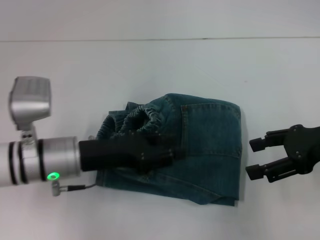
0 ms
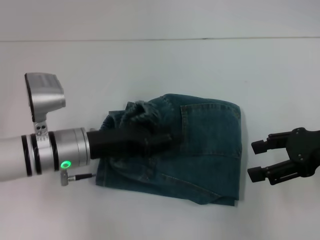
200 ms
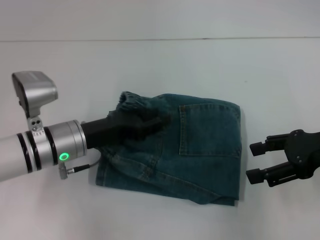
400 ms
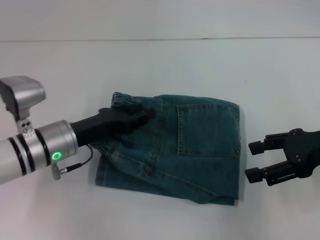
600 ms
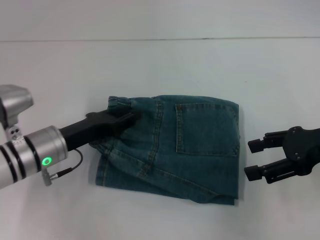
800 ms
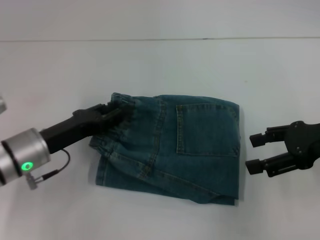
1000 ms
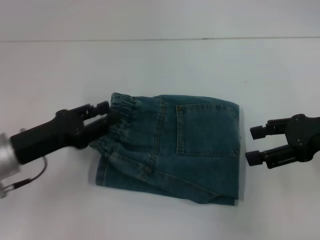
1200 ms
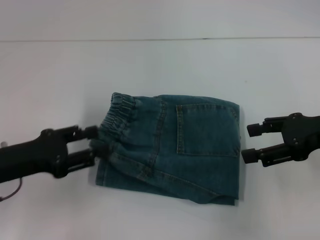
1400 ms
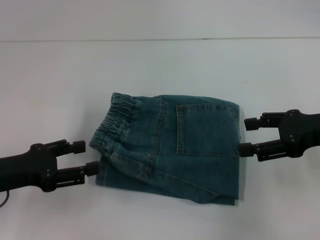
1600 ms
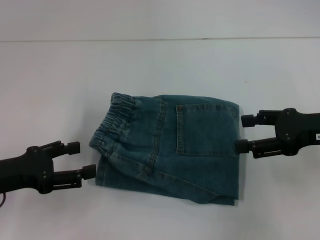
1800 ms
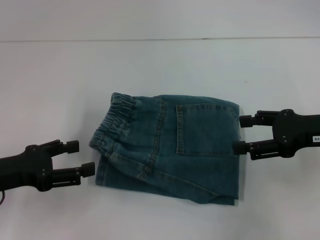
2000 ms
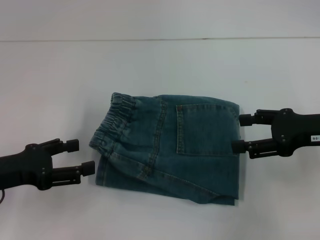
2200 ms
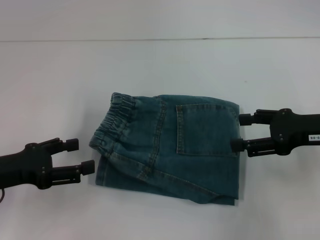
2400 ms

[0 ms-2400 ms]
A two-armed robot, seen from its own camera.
Step, 0 ms to 1400 ms: Adjust the pants with your left hand.
0 ms to 1200 ms: The left gripper moves to the left, some 10 cm.
1200 ms to 2400 ms: The left gripper changes place by some 5 cm, and opens up.

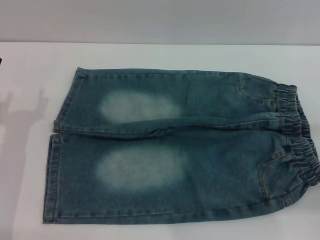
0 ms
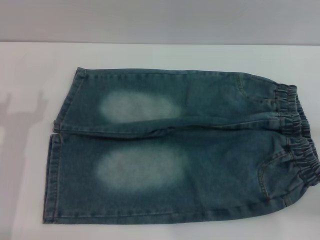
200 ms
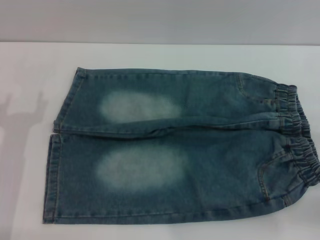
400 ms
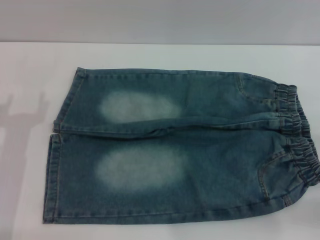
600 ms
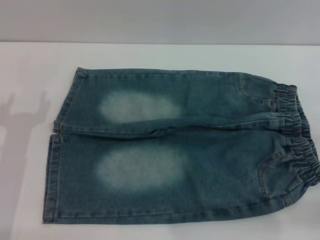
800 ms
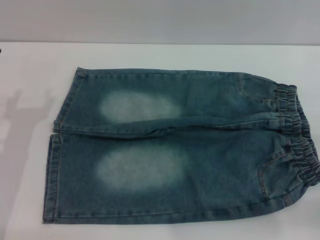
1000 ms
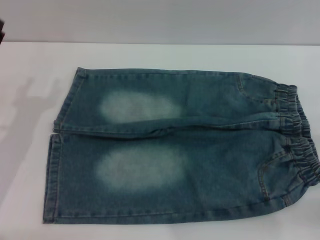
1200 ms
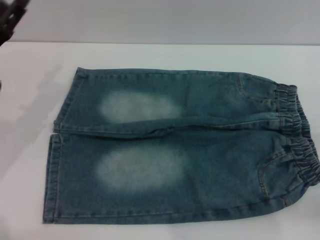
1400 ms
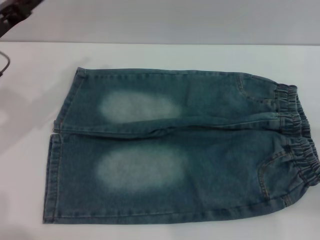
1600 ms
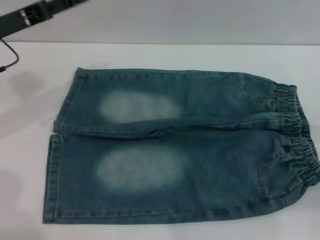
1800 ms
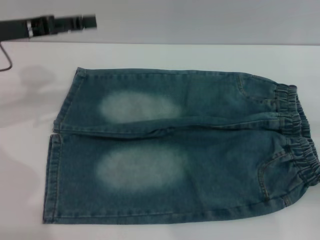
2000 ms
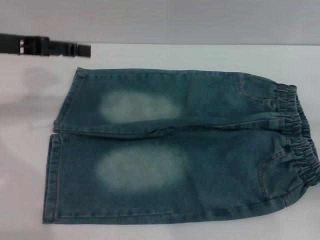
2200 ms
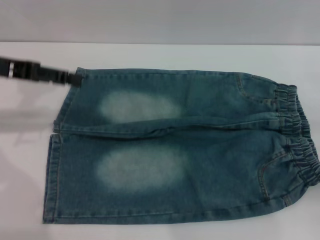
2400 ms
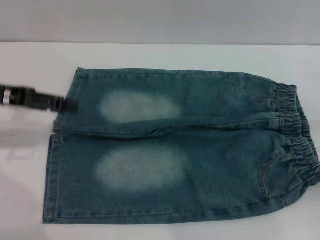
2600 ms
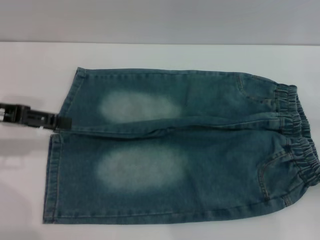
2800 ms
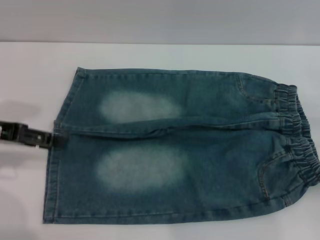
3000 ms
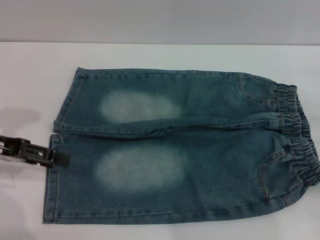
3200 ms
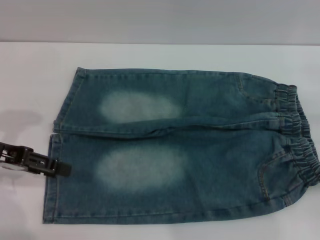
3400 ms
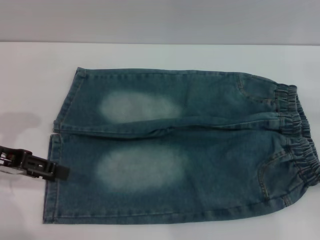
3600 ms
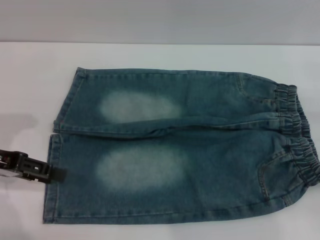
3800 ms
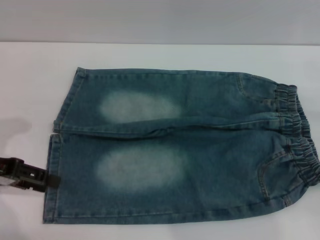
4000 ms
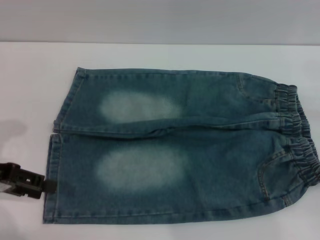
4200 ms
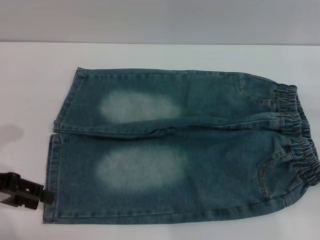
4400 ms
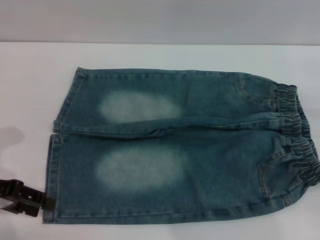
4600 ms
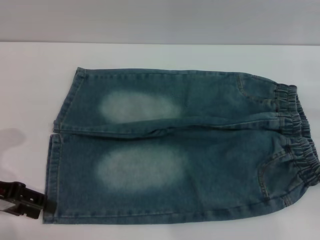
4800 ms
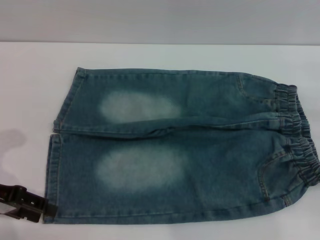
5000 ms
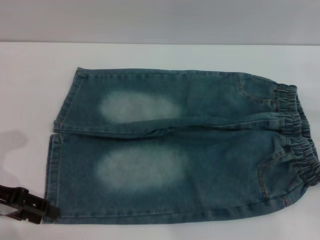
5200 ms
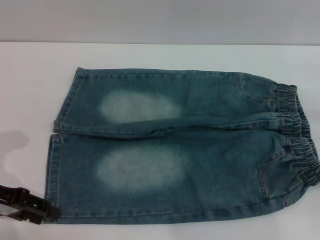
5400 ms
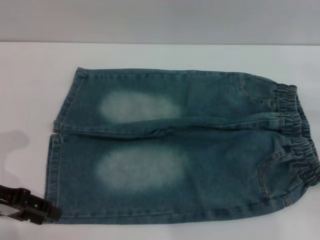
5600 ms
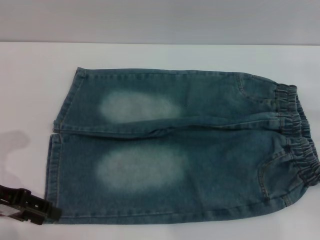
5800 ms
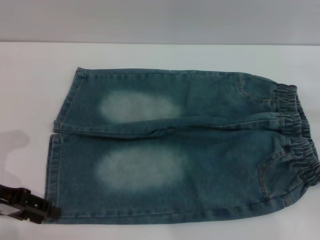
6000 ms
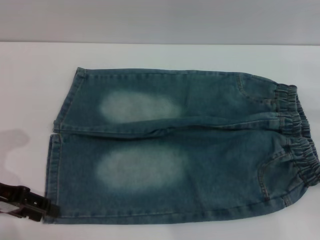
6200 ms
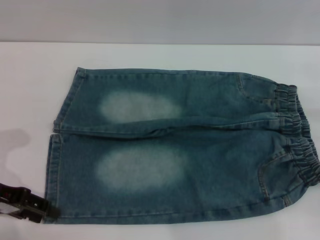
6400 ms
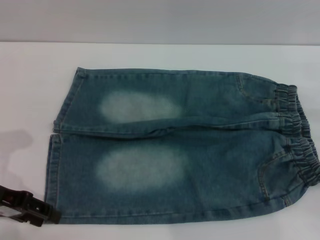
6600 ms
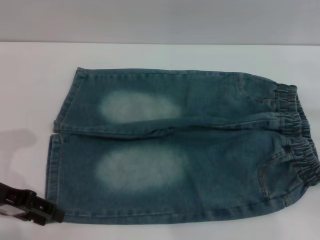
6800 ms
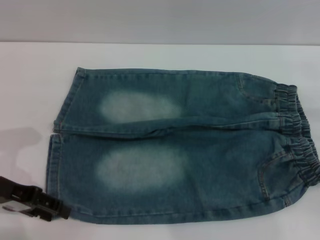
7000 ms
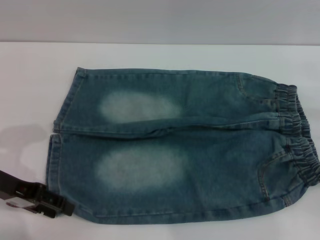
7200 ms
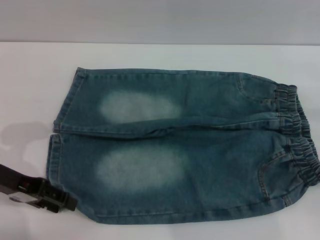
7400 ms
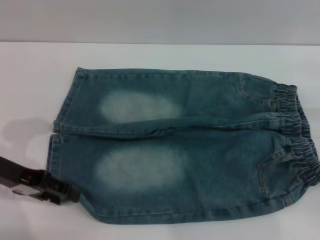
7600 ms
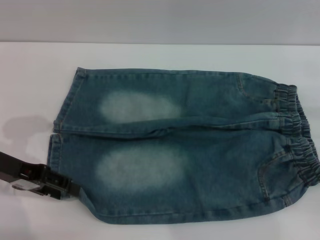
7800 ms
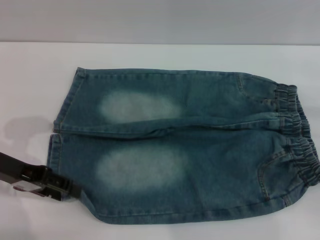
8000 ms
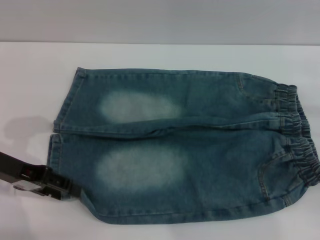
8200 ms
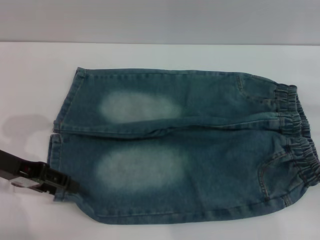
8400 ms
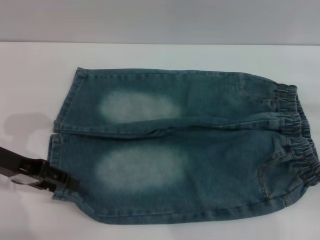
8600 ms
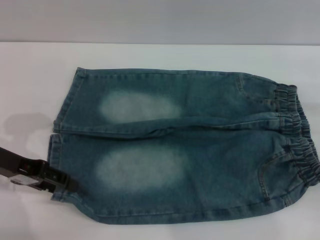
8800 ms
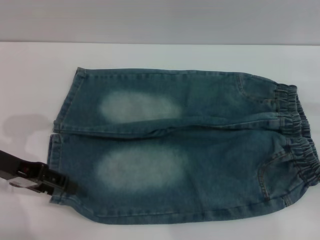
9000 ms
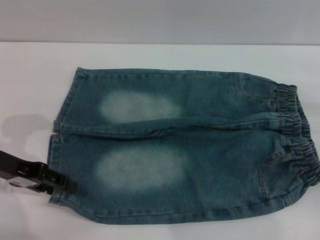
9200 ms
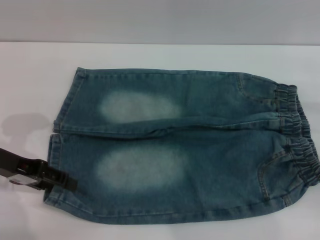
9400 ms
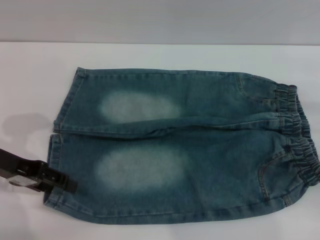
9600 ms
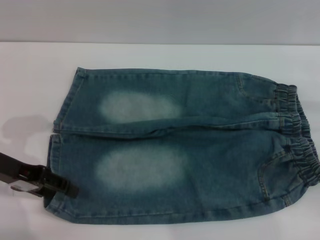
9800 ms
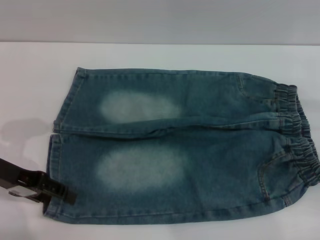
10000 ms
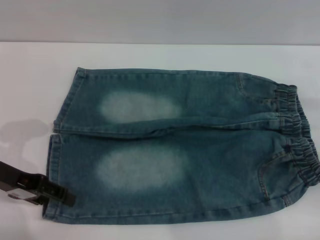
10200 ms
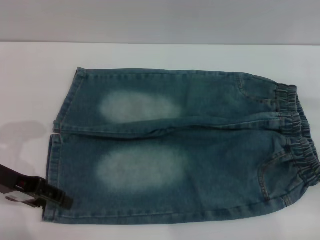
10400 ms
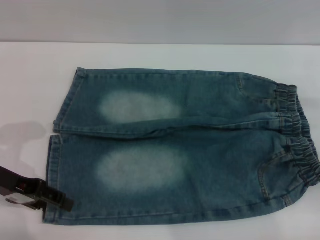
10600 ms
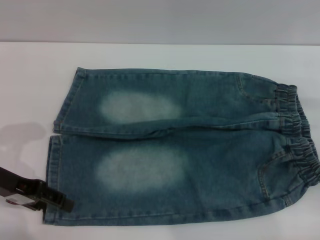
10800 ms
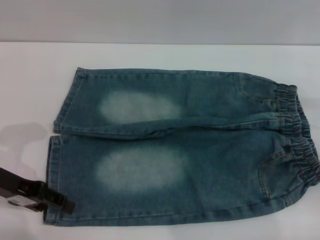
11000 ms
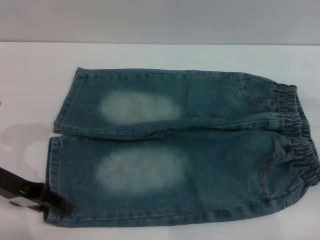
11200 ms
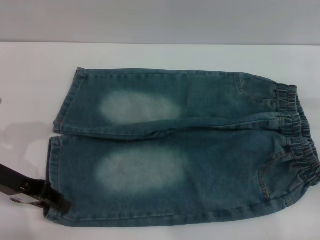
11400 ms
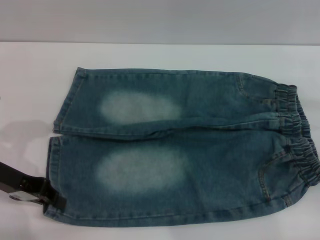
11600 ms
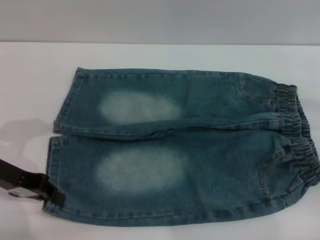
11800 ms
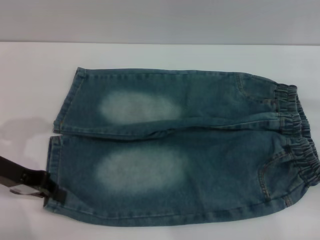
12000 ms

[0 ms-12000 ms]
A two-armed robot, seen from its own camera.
0 ms to 1600 ms: The left gripper moves forward and upward, some 15 cm.
1600 ms to 3000 ms: The left gripper moves about 5 cm.
3000 ms to 4400 ms: The left gripper ends up about 5 cm from where it was.
4400 ms to 10400 ms: There are only small adjustments of the grippers.
10400 ms to 12000 ms: The left gripper closes.

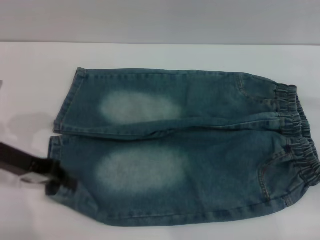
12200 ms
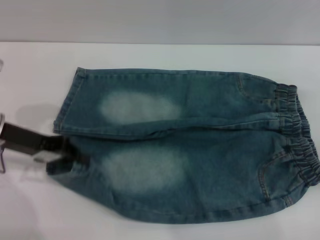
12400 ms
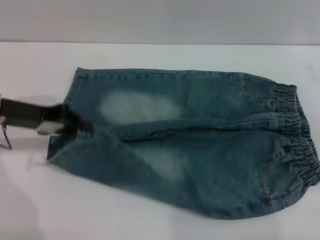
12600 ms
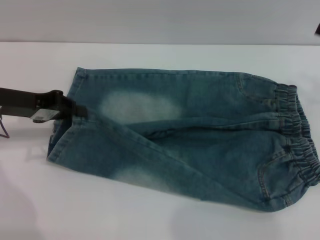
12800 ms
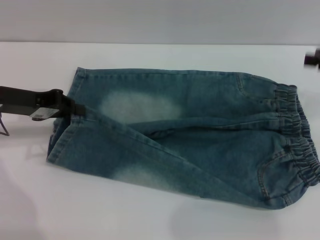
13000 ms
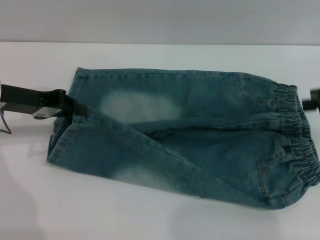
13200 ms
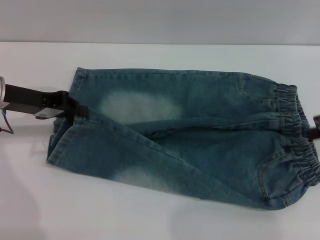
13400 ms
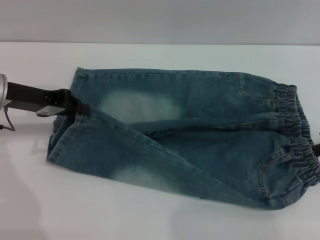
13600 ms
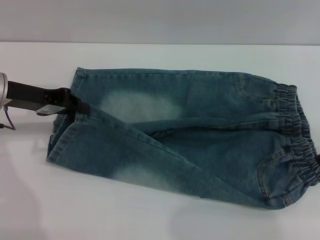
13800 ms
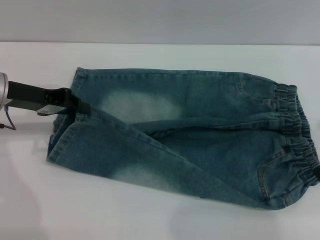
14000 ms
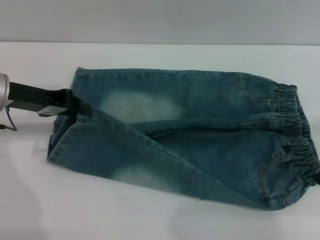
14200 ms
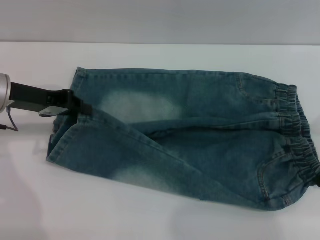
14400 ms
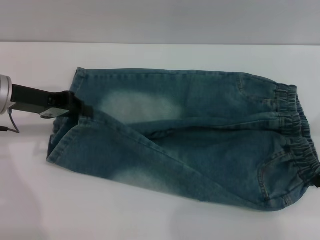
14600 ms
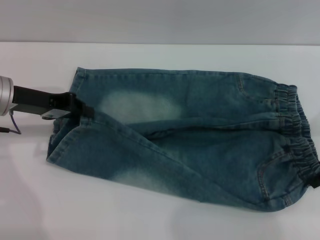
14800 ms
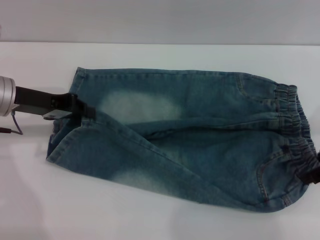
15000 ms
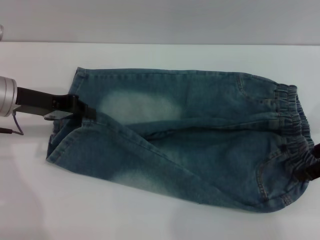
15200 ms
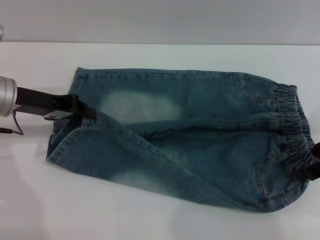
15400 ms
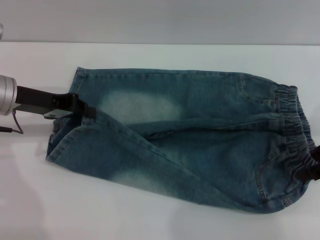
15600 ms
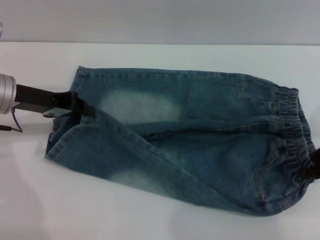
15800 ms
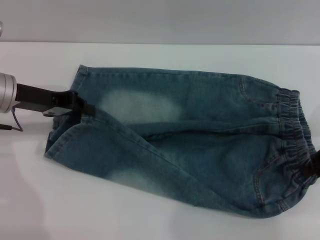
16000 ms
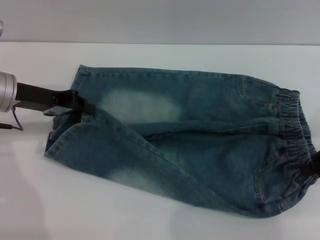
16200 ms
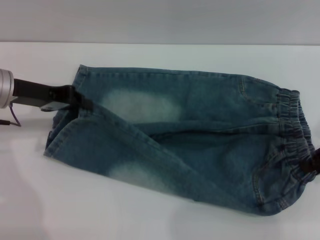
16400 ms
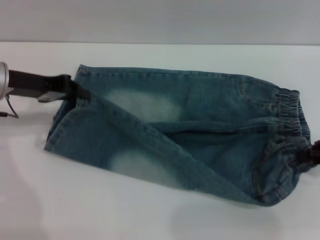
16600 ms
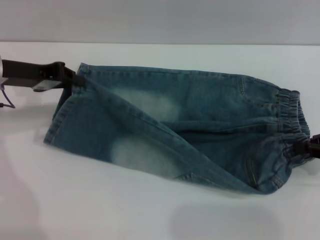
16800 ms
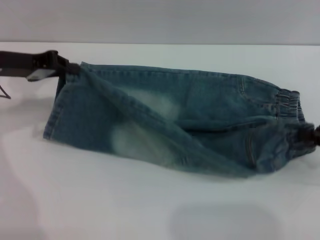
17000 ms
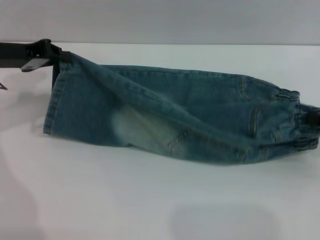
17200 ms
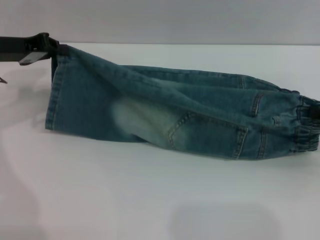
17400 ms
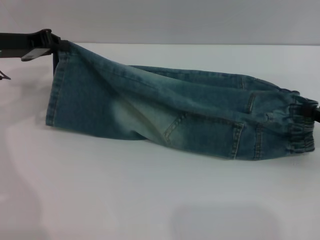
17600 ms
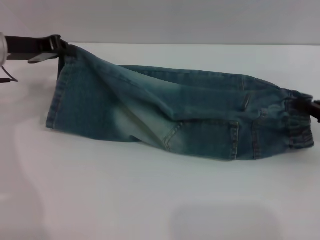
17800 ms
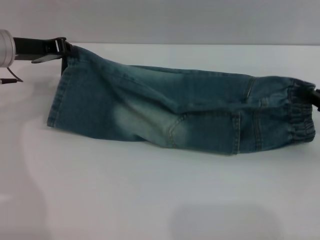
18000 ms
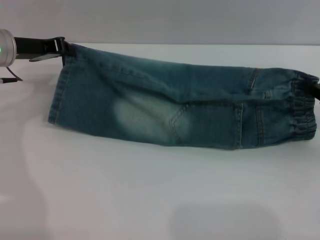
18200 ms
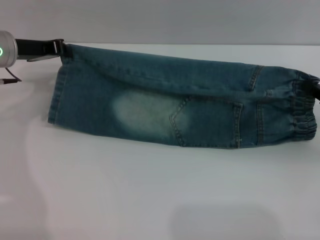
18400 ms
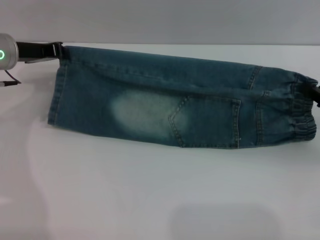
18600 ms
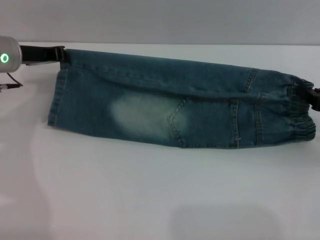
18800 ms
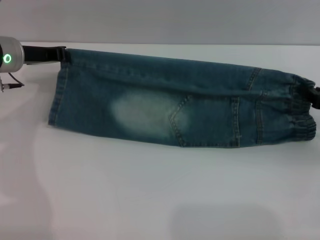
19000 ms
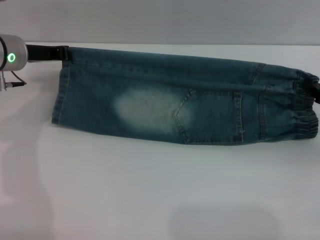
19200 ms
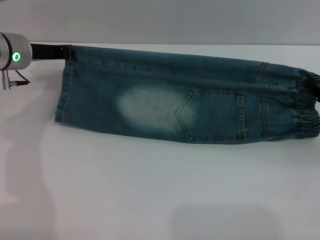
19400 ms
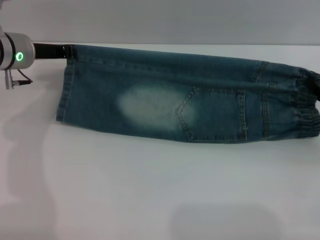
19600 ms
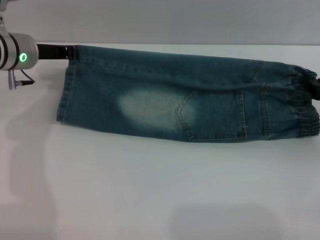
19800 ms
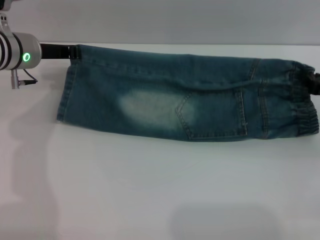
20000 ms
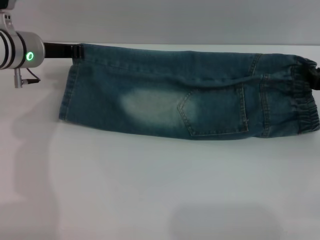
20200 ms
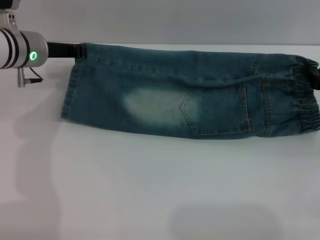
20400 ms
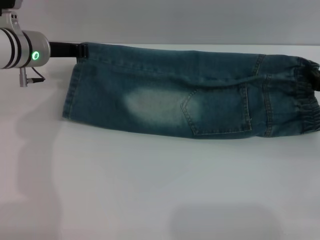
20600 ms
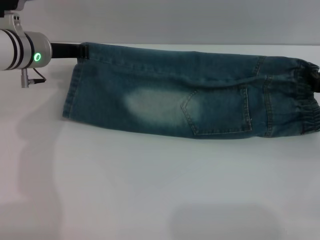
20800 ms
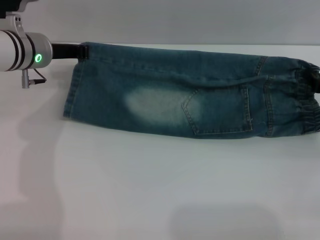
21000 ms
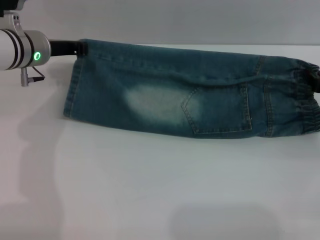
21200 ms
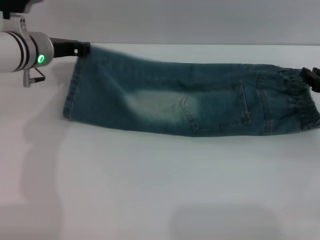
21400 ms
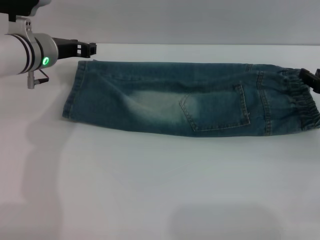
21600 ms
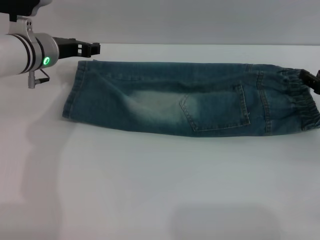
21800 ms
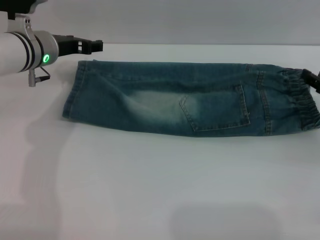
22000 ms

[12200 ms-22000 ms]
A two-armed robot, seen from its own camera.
12200 ms to 13600 ms: The right gripper is displaced upward by some 10 cm. The left gripper moves forward, about 5 cm.
13600 ms to 15000 ms: The right gripper changes place by approximately 5 cm.
15000 ms to 16400 ms: The right gripper closes.
16400 ms to 17800 ms: The right gripper shifts some 5 cm downward.
17800 ms to 19200 ms: The grippers make only small movements.
19200 ms to 20600 ms: There are only small adjustments of the grippers.
20600 ms to 22000 ms: The right gripper opens. The left gripper opens up.
